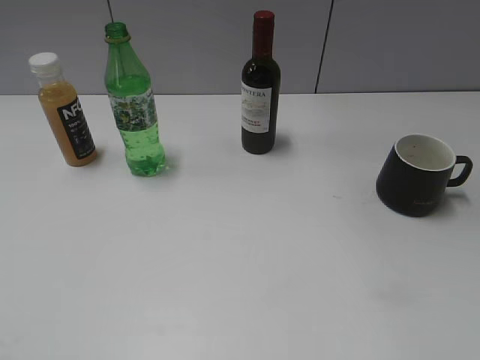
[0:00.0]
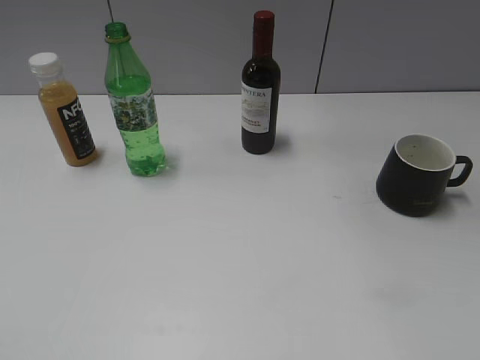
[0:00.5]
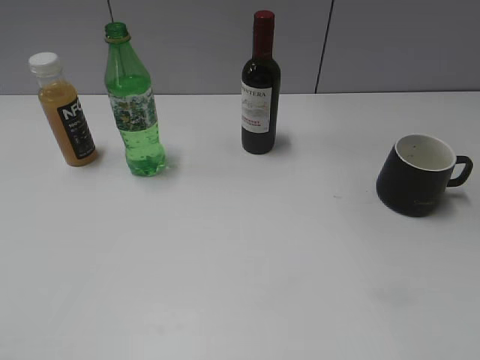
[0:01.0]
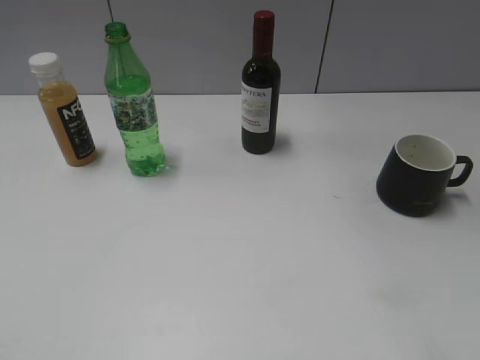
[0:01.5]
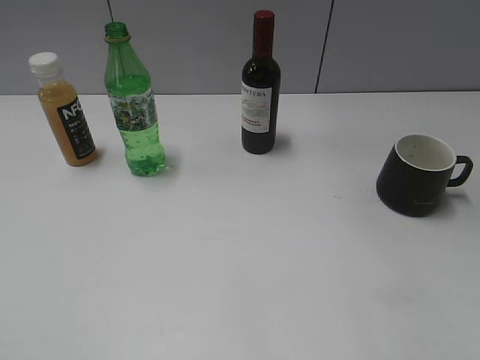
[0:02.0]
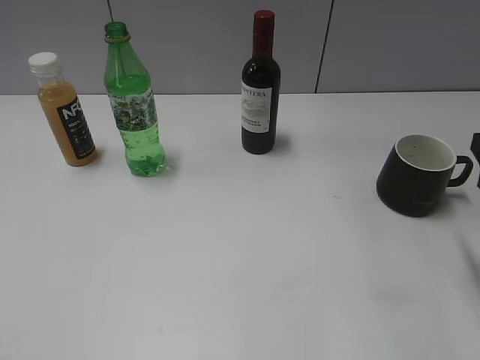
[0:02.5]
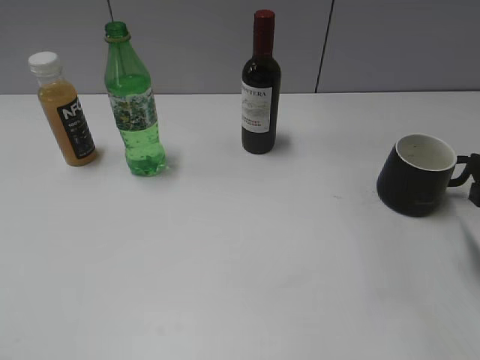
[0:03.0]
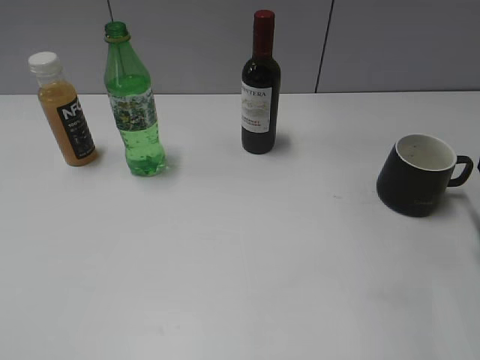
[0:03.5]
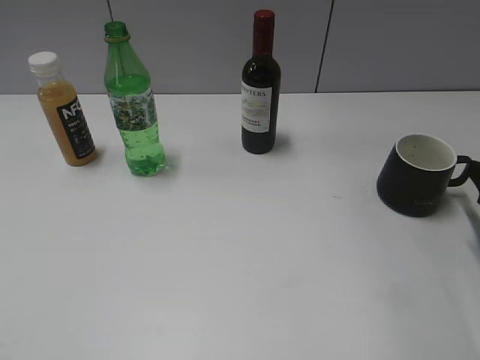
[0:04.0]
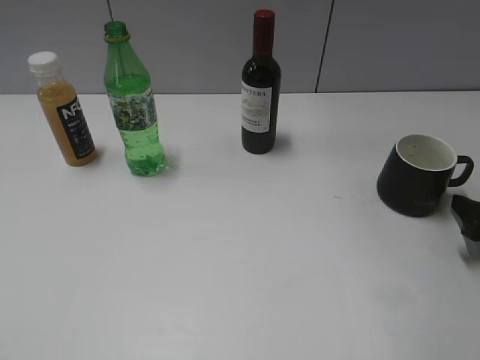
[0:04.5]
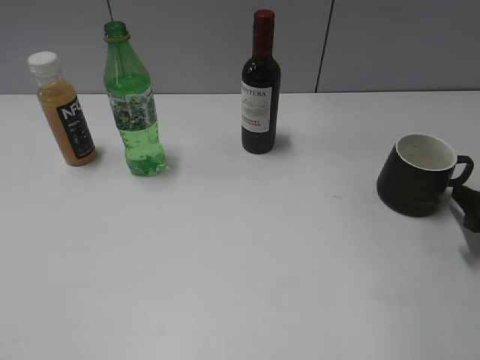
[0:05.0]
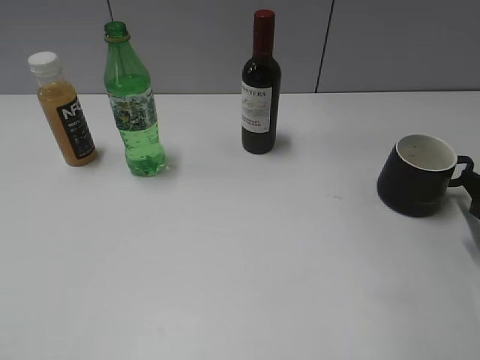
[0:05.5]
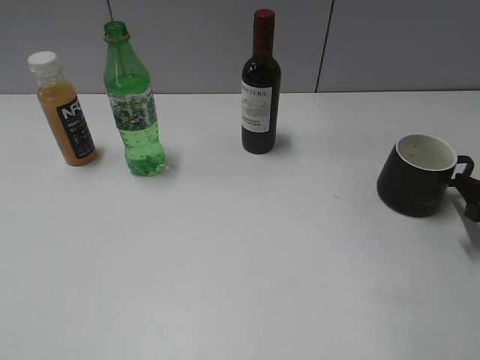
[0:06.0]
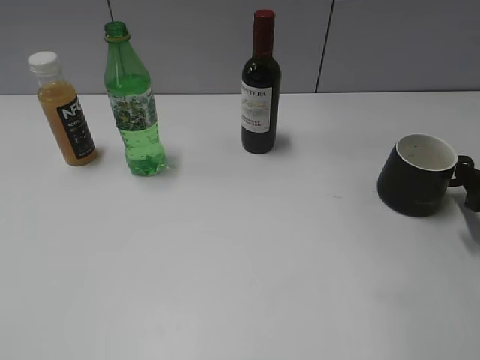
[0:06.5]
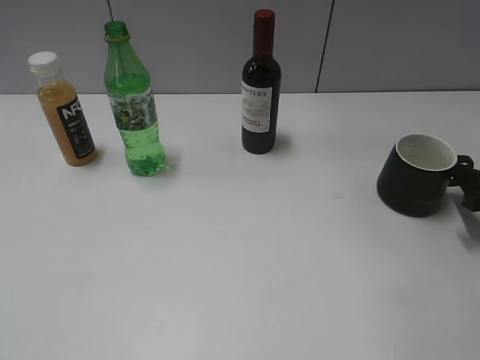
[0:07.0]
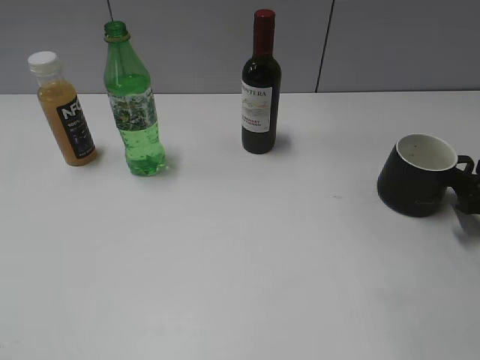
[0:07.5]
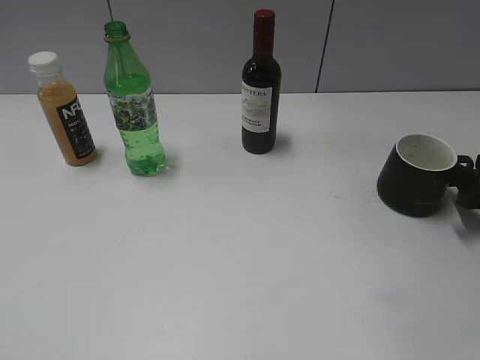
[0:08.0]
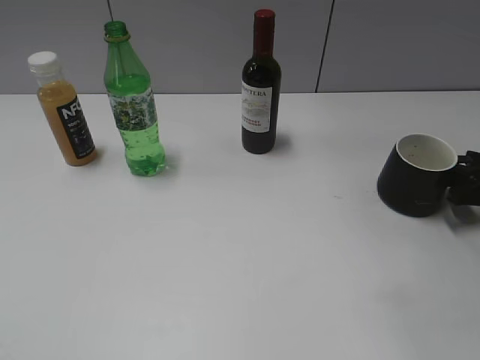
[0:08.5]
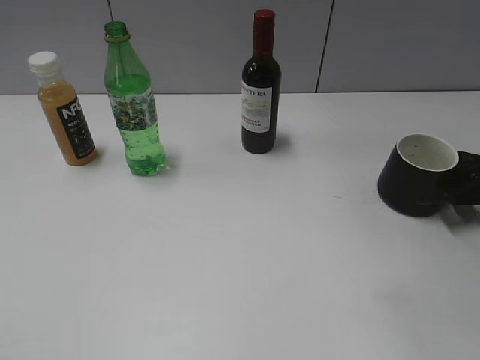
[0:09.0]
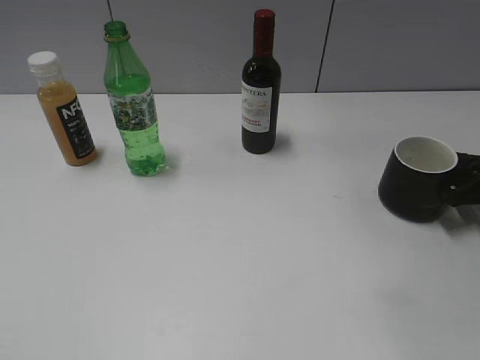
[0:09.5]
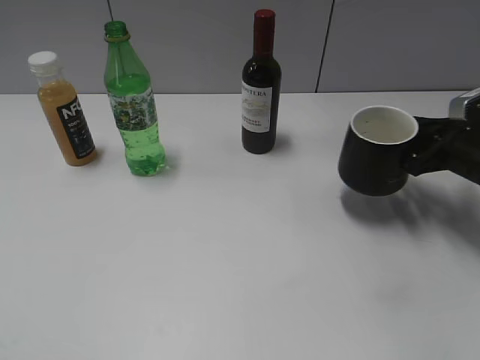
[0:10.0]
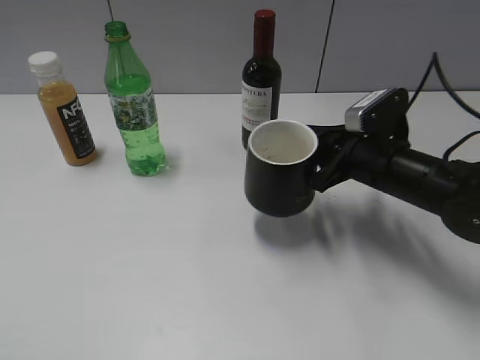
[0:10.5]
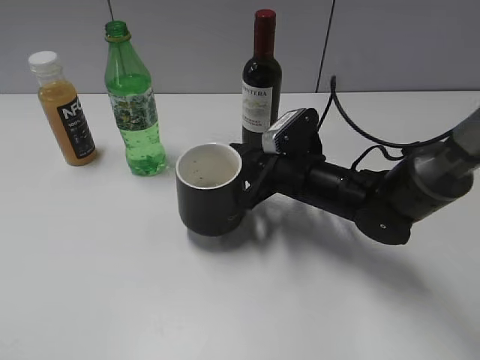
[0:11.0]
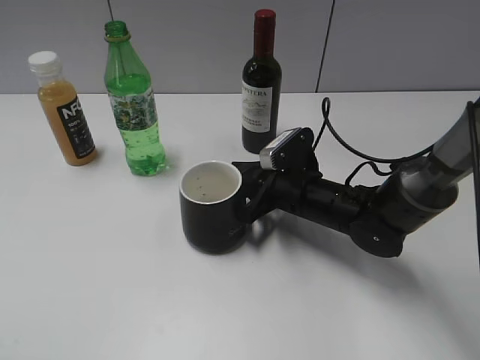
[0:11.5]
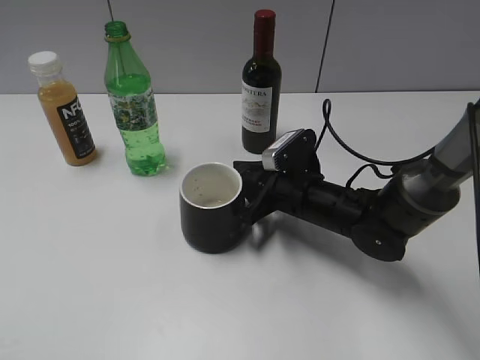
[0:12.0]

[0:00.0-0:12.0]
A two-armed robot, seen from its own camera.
Step, 0:01.0 to 0:09.0: Grasp the black cup with right gripper.
0:08.0 to 0:10.0: The right gripper travels to the left by about 5 cm, and closes its fingers.
0:10.0 to 0:12.0: The right gripper goes approximately 20 cm to the left.

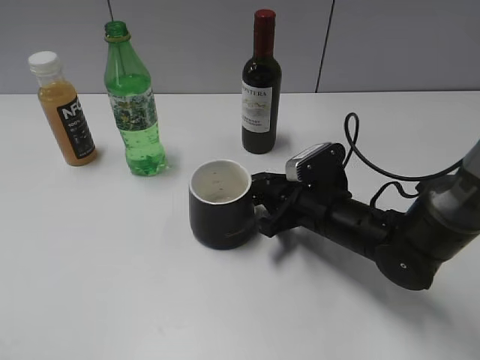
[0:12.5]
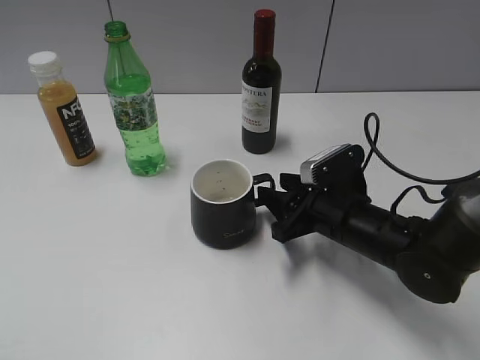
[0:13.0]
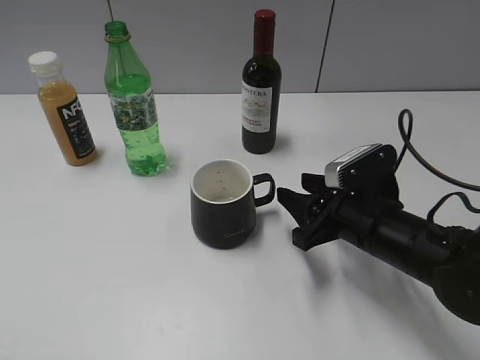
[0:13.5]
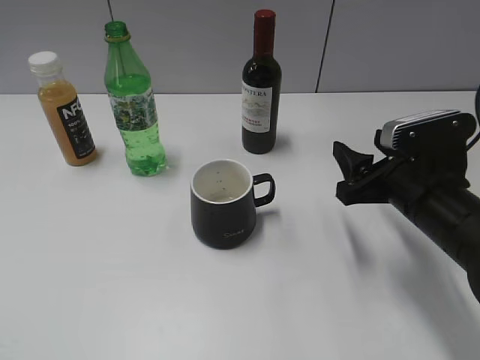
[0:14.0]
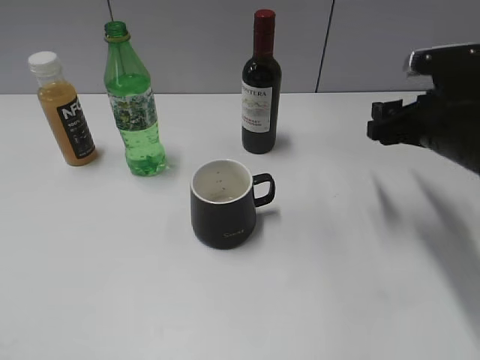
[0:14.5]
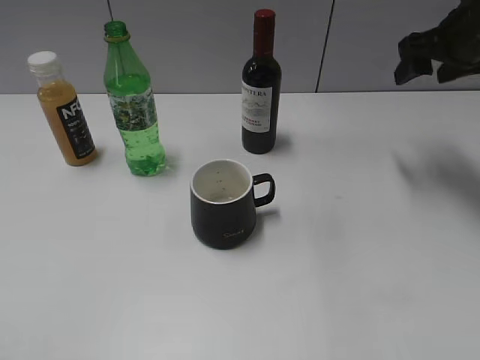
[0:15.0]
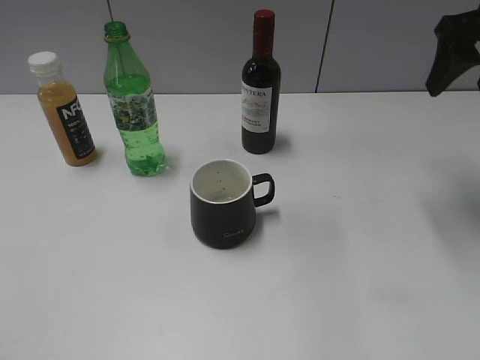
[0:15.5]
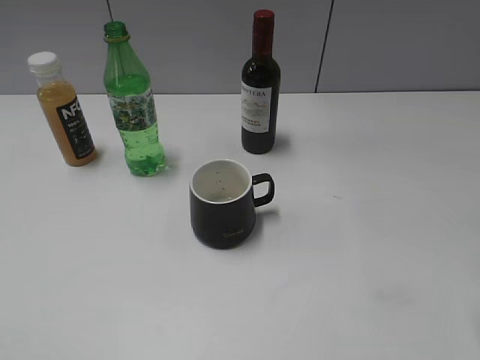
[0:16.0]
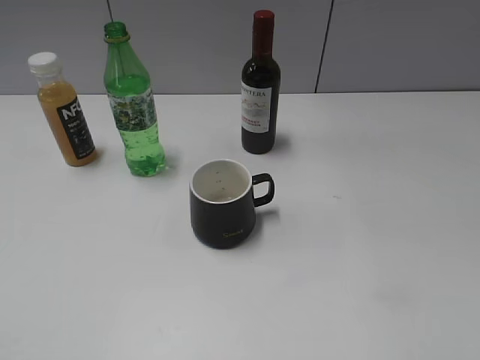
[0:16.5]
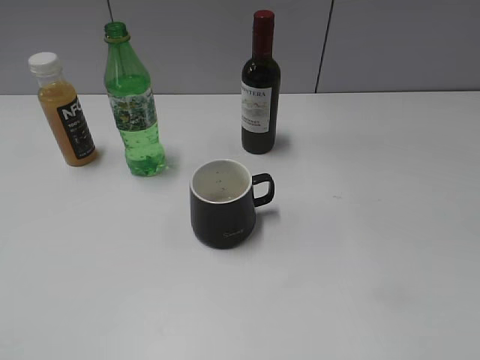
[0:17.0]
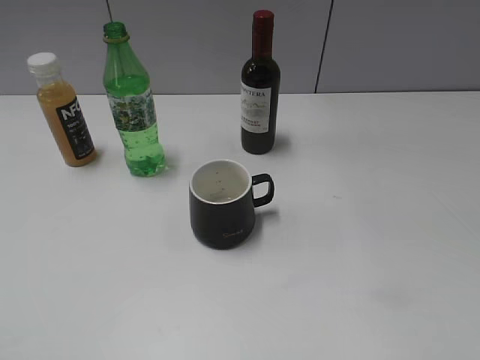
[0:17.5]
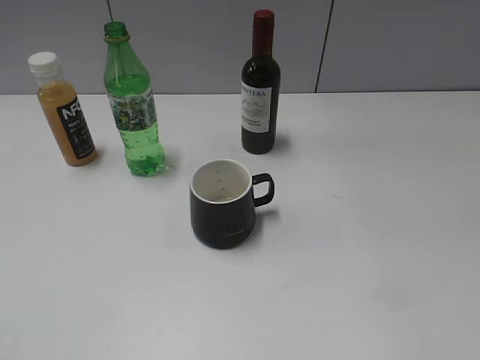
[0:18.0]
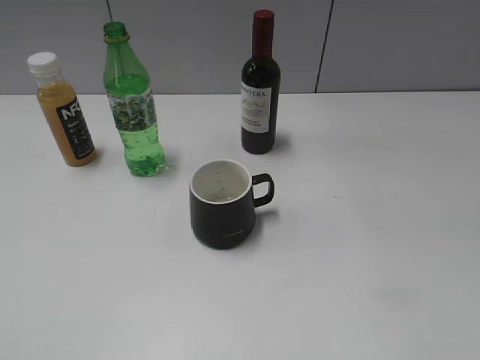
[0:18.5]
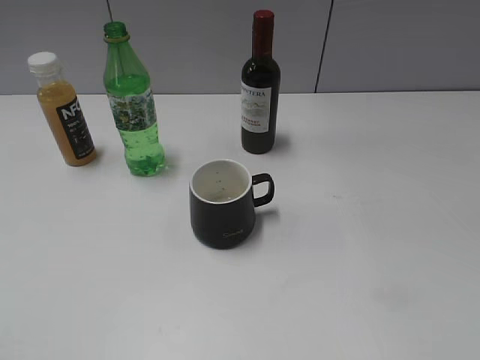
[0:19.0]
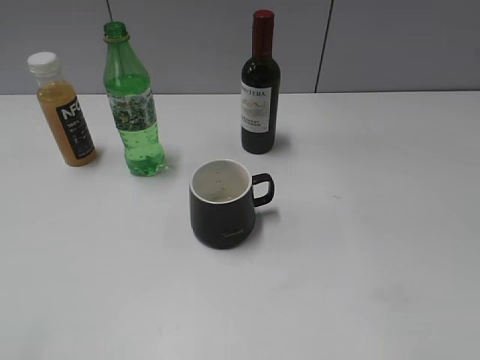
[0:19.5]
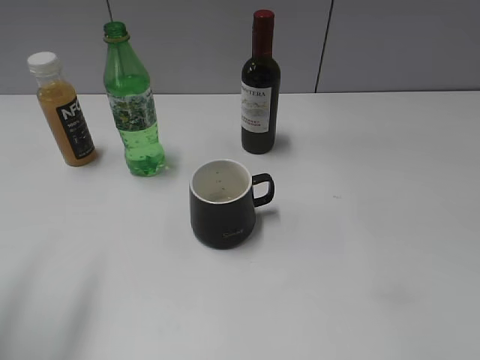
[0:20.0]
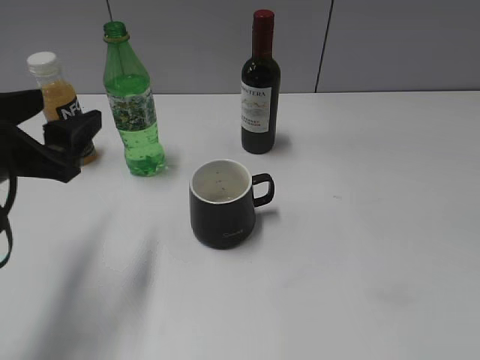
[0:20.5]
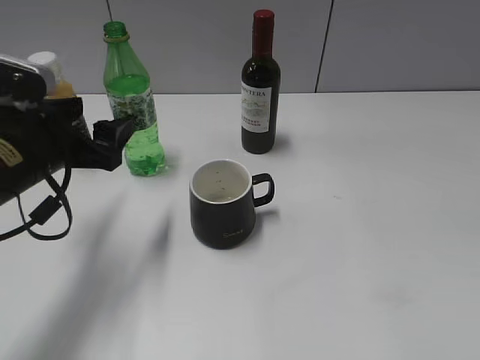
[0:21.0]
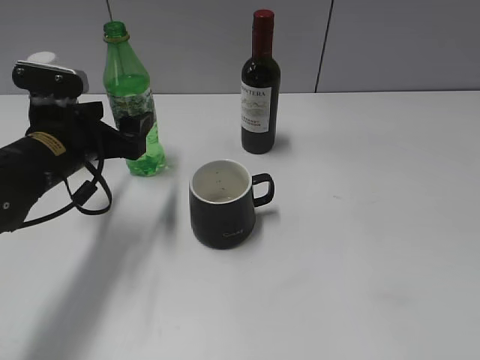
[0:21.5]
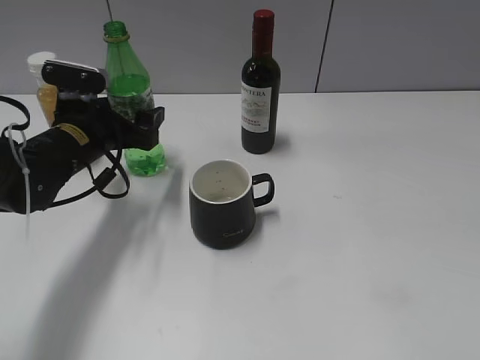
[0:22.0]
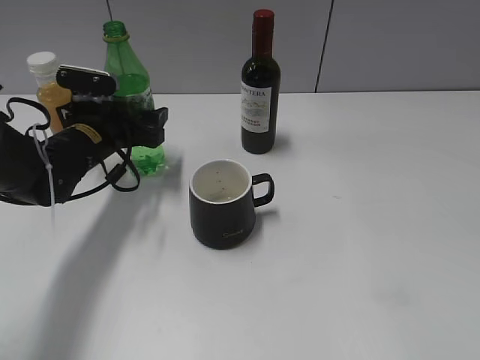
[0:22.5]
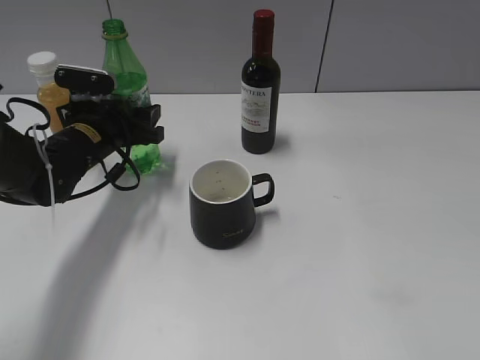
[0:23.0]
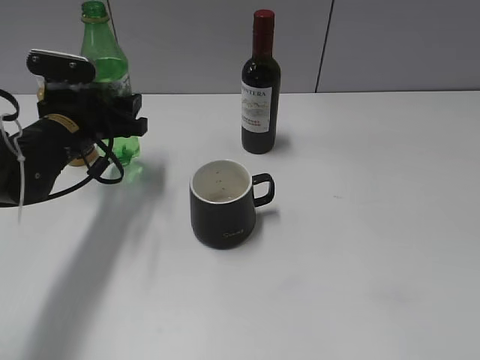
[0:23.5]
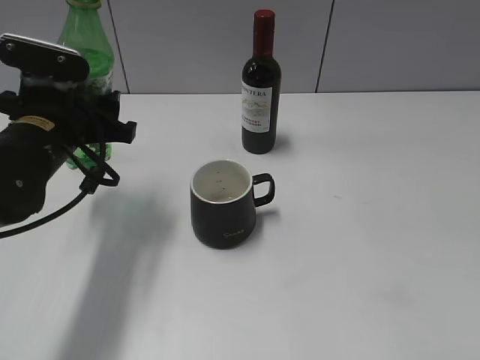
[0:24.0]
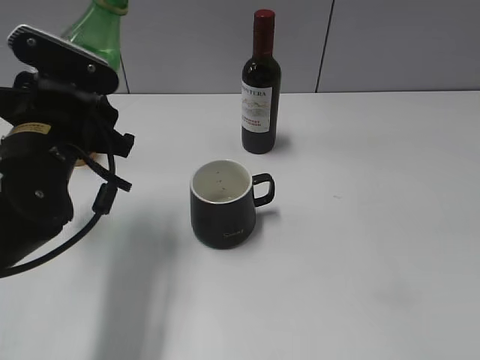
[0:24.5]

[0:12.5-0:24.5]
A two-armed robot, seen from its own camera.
Step, 0:13.5 to 0:23.0: Grasp the bottle with sprite with left gripper.
0:12.5 to 0:14.5: The right gripper travels upward and to the right by some 15 cm, and opens.
0:14.5 to 0:16.5: The right gripper shifts roughly 20 cm backward.
0:18.5 to 0:20.5: The left gripper travels forward by approximately 25 cm, and opens.
0:20.5 to 0:22.5: The left gripper heads forward and downward, covering about 20 cm.
0:22.5 to 0:24.5: The left gripper moves backward and upward, roughly 15 cm, and closes its fingers.

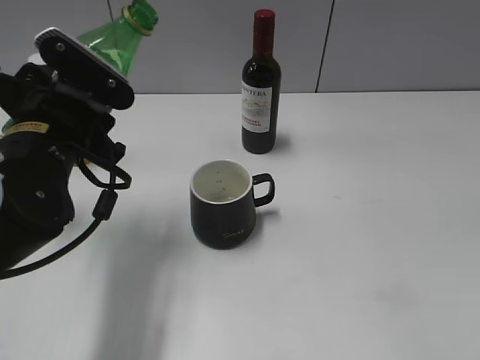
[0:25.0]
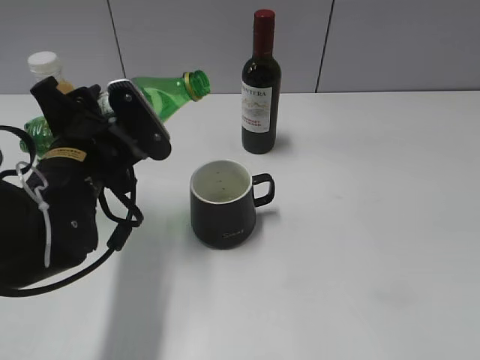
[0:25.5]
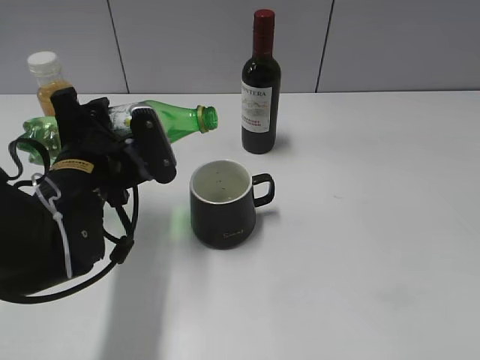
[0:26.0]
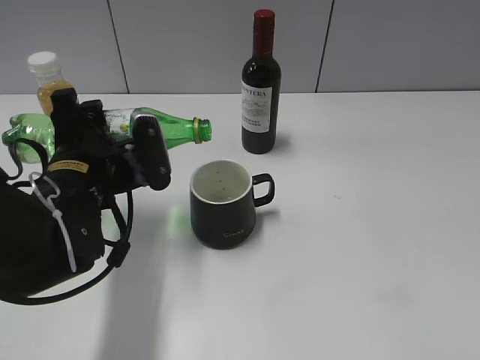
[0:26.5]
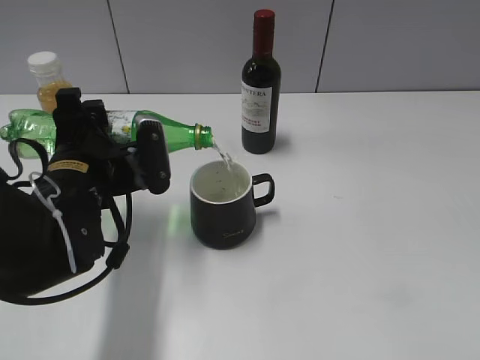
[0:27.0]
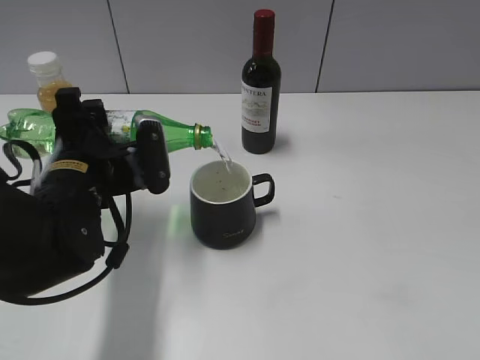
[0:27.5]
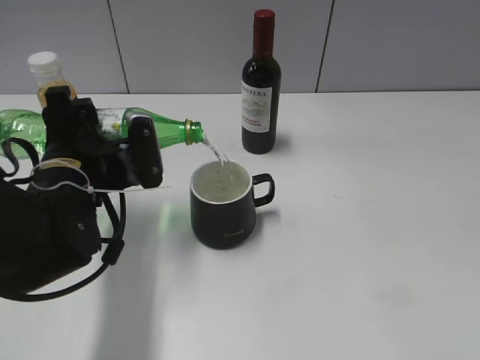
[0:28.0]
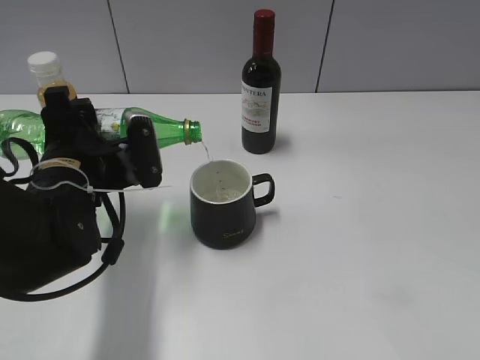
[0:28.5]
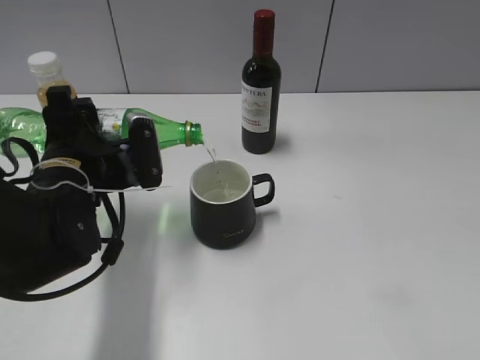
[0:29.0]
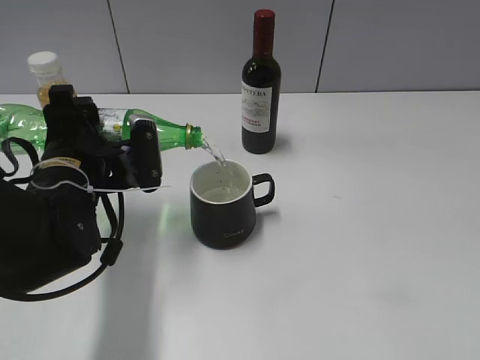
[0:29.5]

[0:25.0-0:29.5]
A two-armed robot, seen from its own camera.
0:25.0 to 0:27.0: The left gripper shifts by roughly 5 cm.
0:27.0 to 0:29.5: Both grippers stay put.
